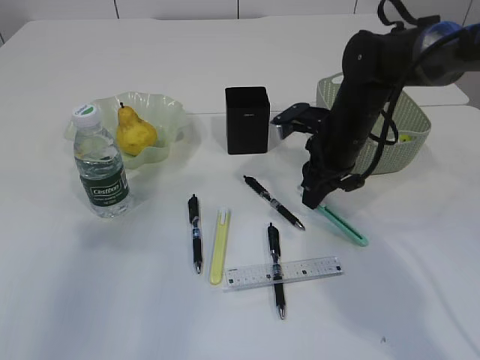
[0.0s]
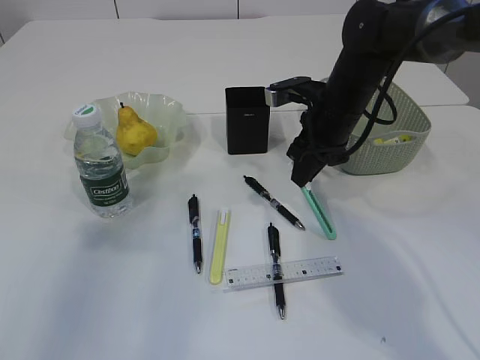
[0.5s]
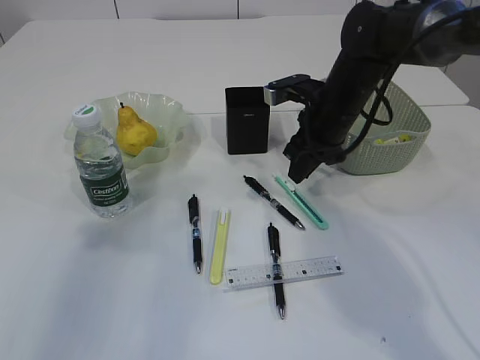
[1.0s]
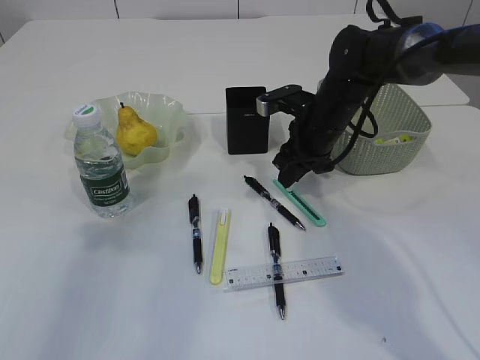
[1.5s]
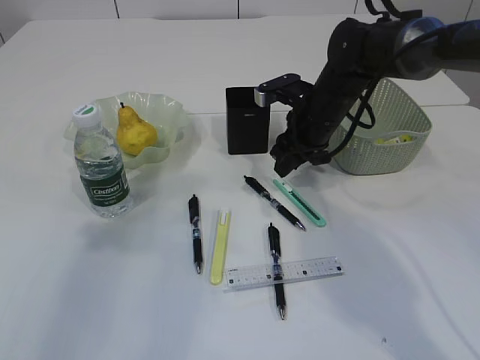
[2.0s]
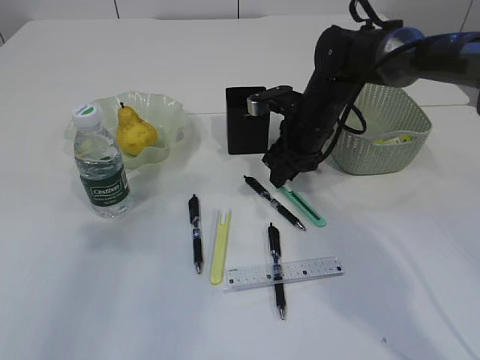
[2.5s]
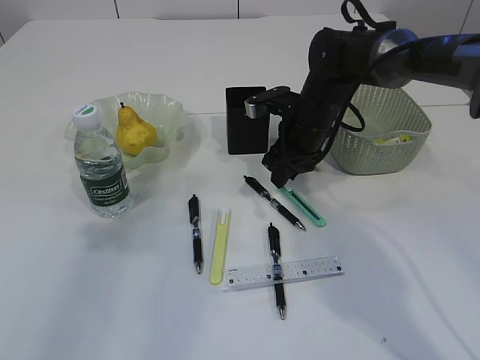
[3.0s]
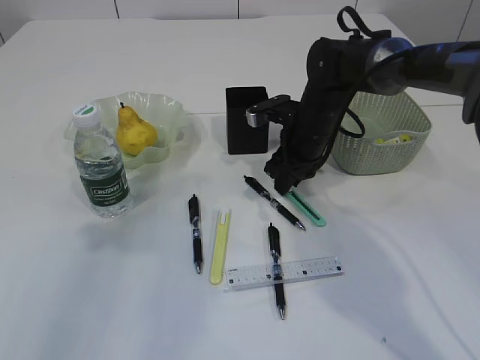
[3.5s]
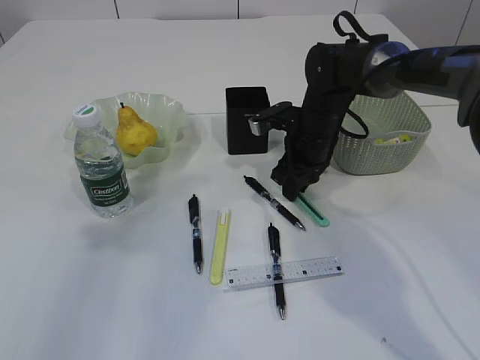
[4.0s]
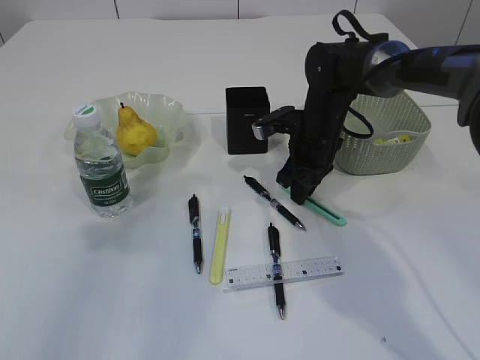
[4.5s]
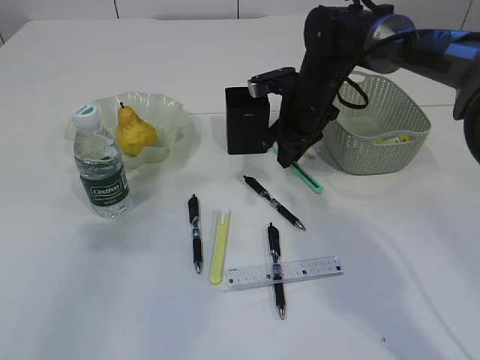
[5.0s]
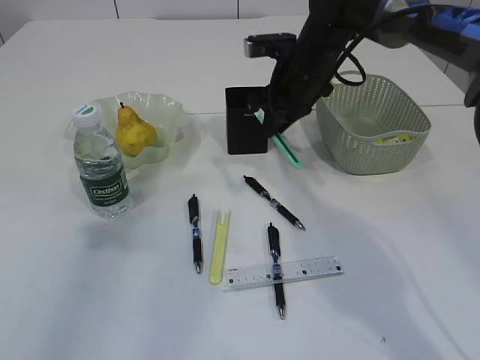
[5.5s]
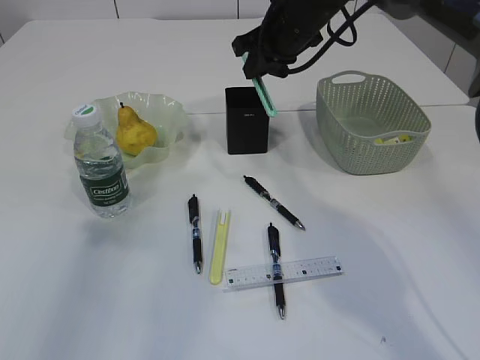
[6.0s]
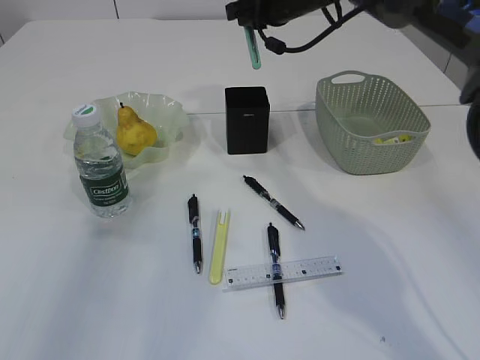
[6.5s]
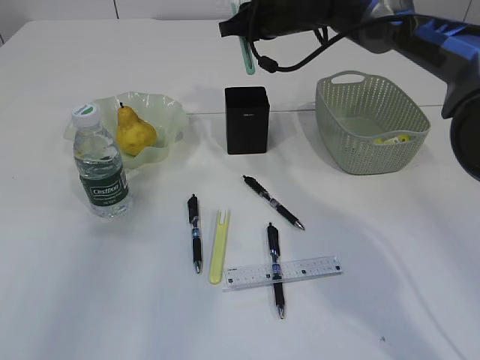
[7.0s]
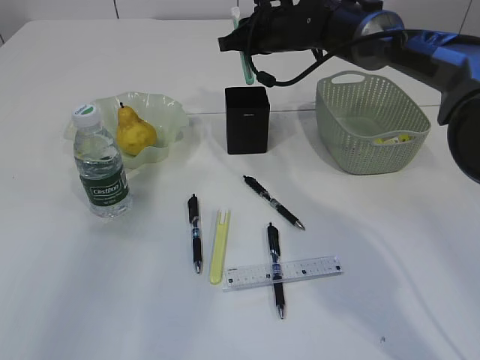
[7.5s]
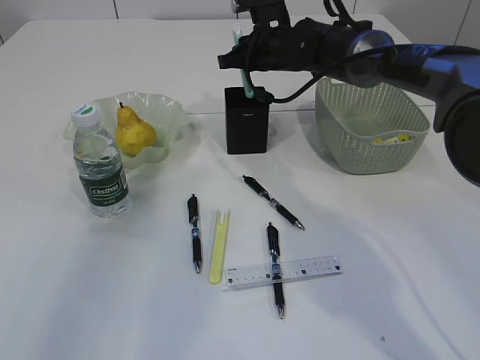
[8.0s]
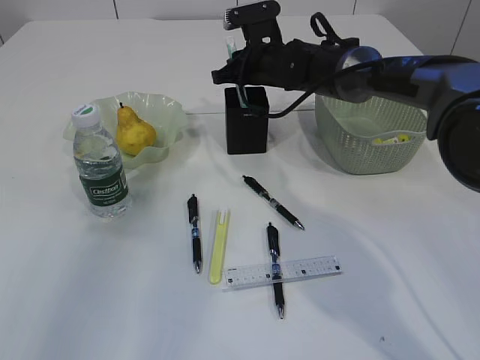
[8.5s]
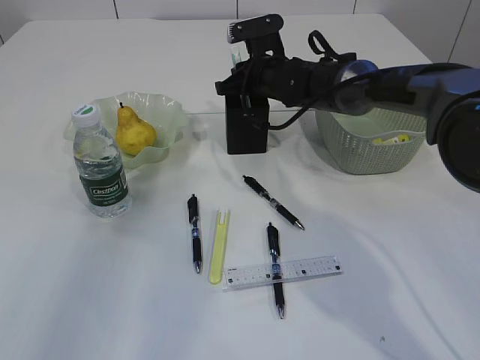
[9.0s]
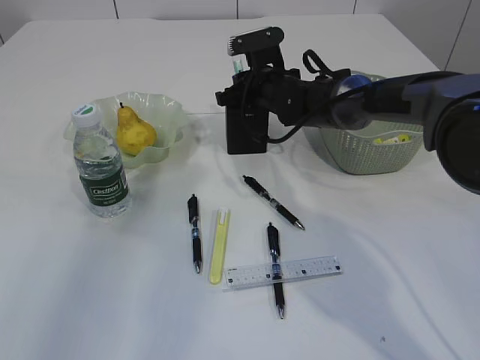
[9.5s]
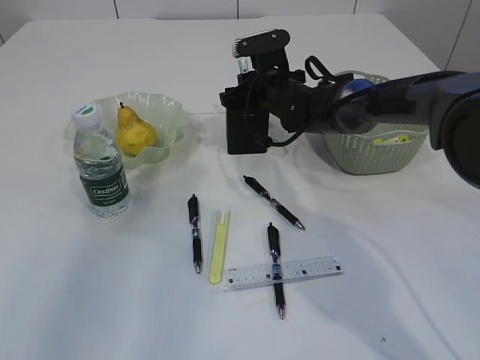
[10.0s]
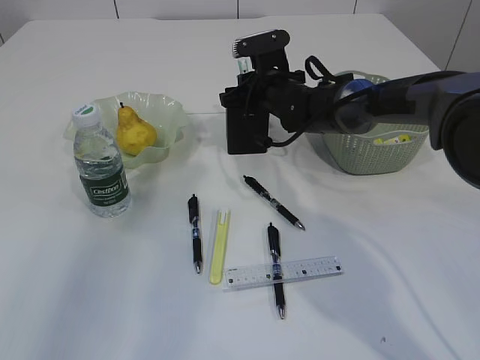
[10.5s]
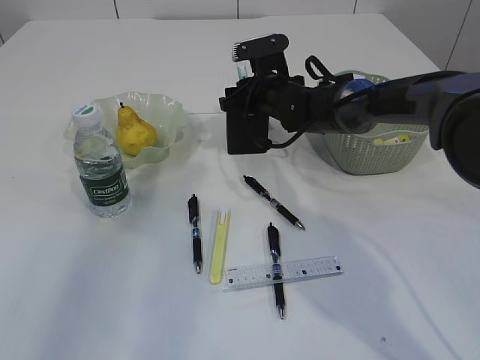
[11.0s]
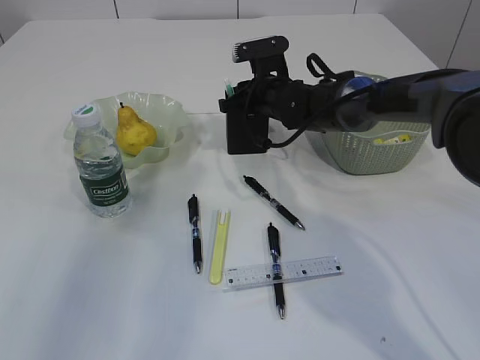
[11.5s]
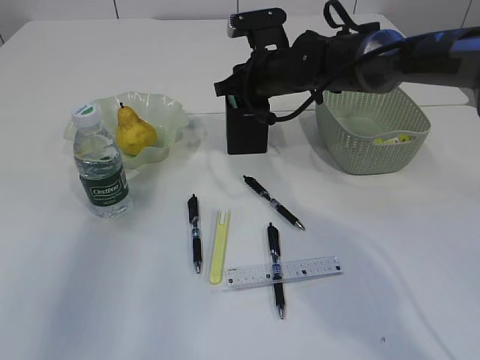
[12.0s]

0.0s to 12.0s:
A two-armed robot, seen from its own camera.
Step, 0.0s to 5.5s: pick up the blue scissors.
0.0s to 4.0s: The grippers move only a little.
4.0s to 6.0s: The right gripper goes roughly 15 cm upward.
6.0s to 8.0s: The right gripper shifts about 5 cm downward.
8.0s to 10.0s: The right gripper moves downward, some 5 cm.
10.0s to 12.0s: The right gripper ends up roughly 5 cm from where it was.

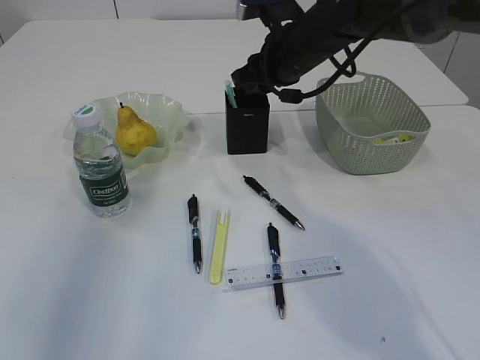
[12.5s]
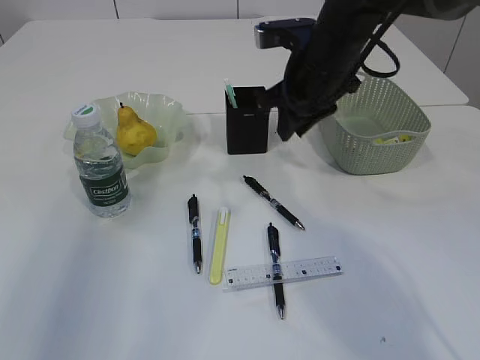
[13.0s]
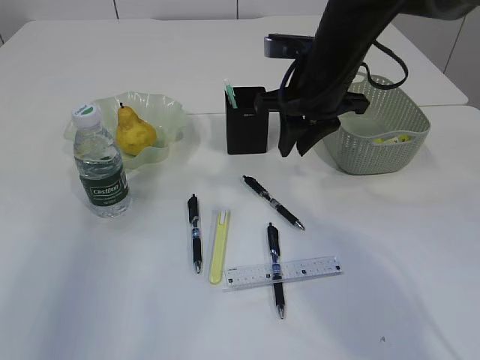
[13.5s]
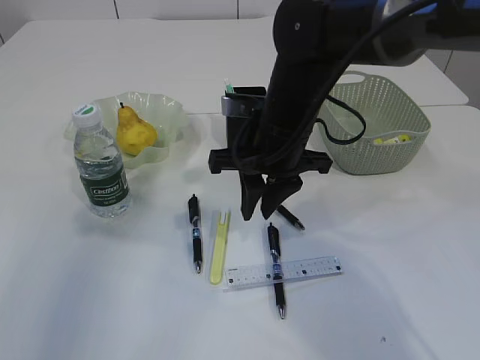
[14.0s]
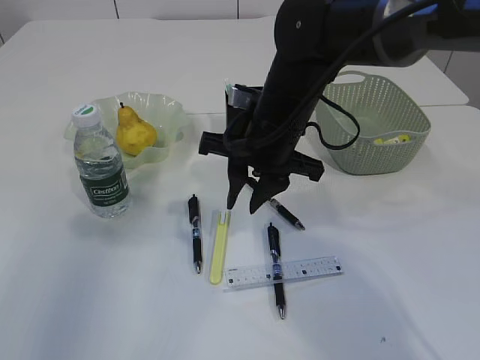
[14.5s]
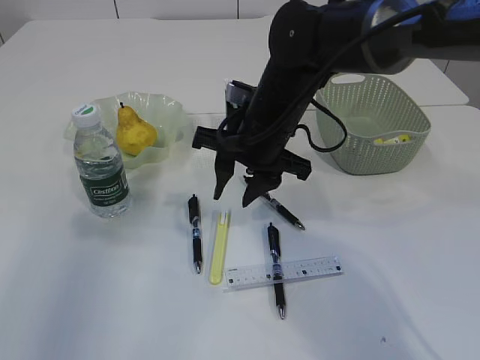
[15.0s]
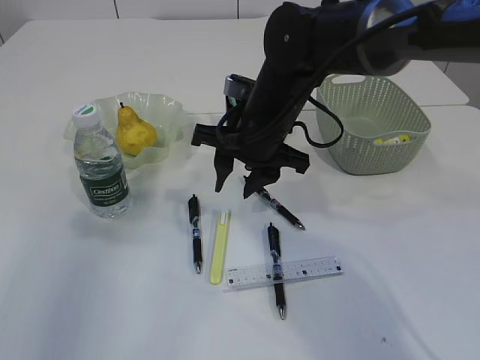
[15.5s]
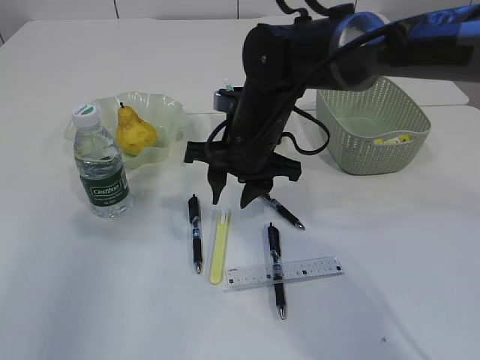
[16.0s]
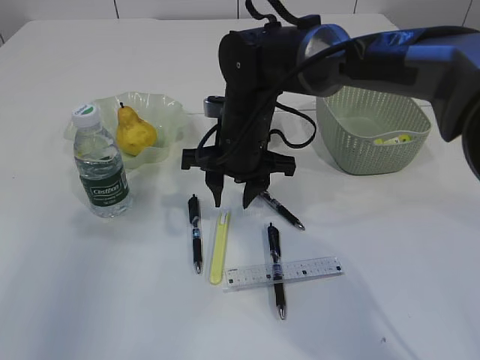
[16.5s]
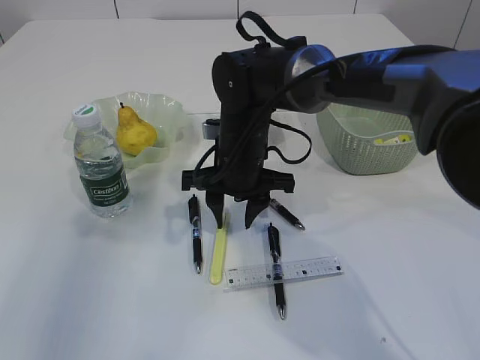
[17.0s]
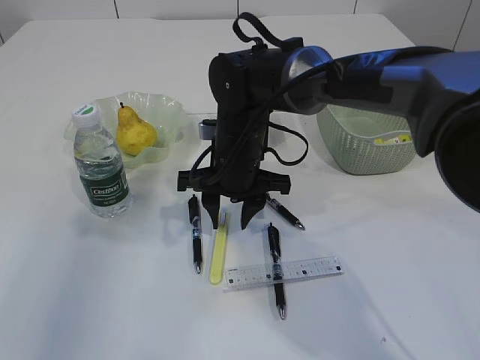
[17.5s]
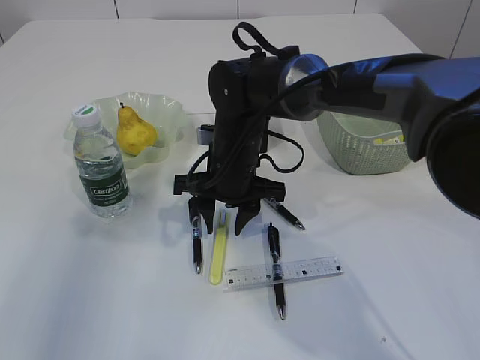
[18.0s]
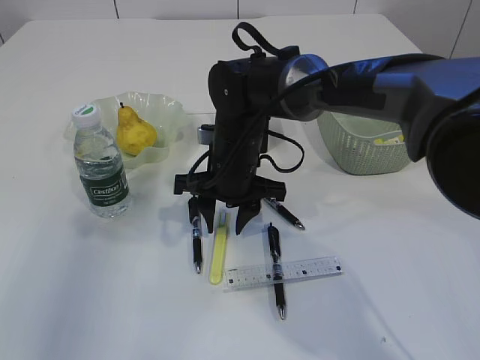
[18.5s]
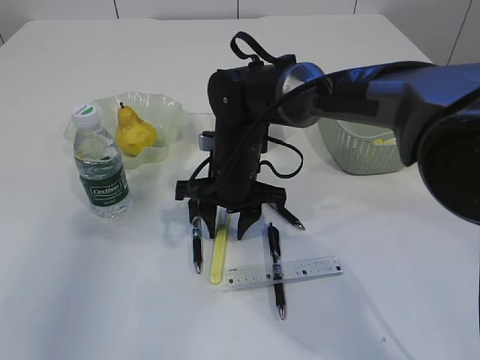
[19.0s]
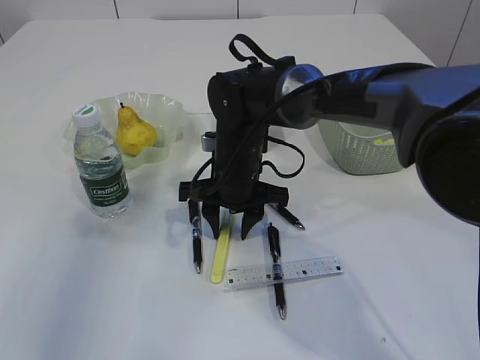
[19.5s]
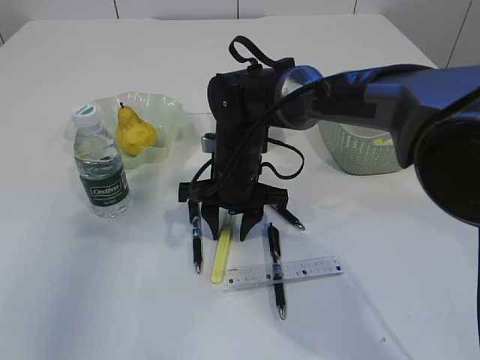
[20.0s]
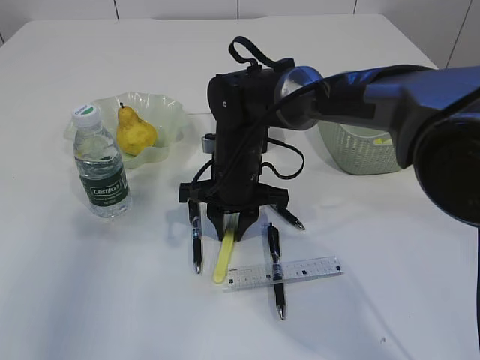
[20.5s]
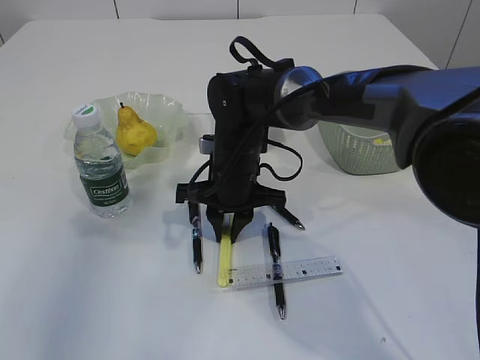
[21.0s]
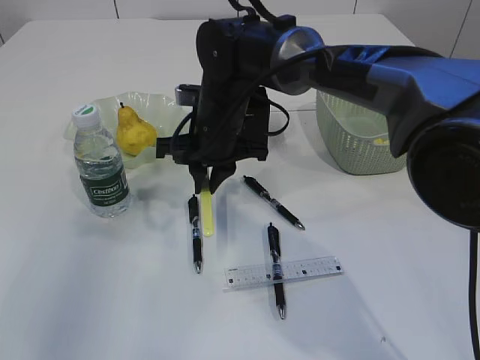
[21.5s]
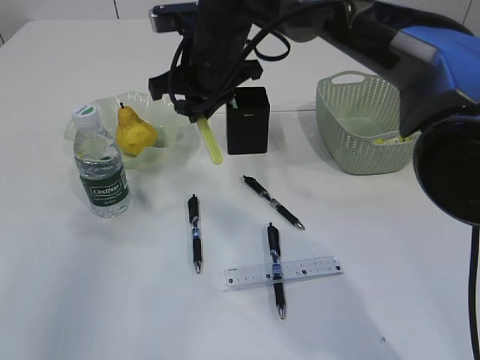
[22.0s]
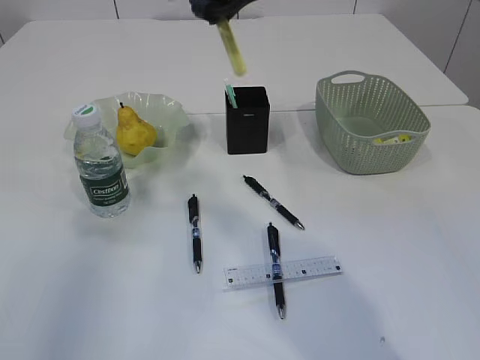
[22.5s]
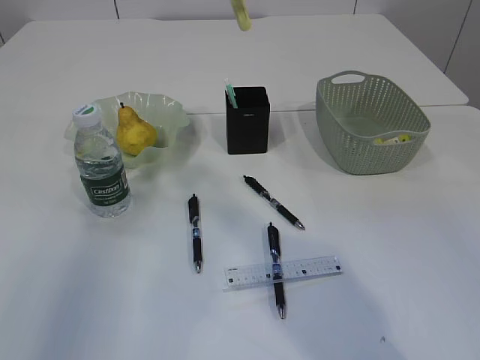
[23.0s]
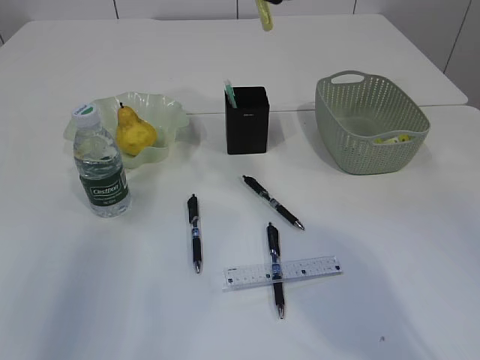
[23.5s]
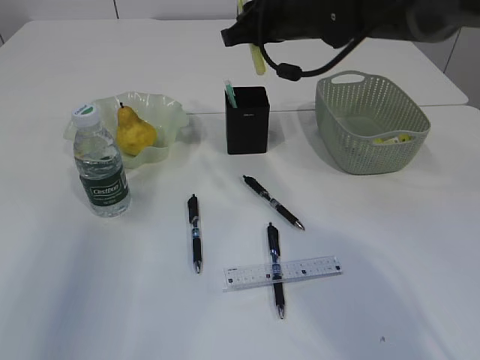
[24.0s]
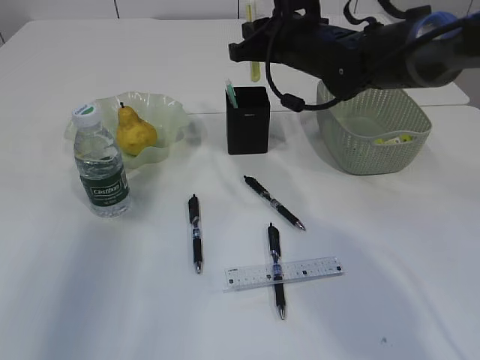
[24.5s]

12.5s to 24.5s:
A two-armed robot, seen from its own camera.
Step, 13.0s to 21.5s: pick up the yellow knife.
12.5s to 14.5s: The right gripper moves backward, about 10 cm.
14.5s to 16.5s: The right gripper changes place by approximately 5 cm.
16.5s to 20.5s: The grippers move only a little.
20.5s to 22.5s: The right gripper is displaced upward by some 25 cm.
22.5s to 24.5s: The right gripper heads downward, to the right and forward, covering approximately 15 cm.

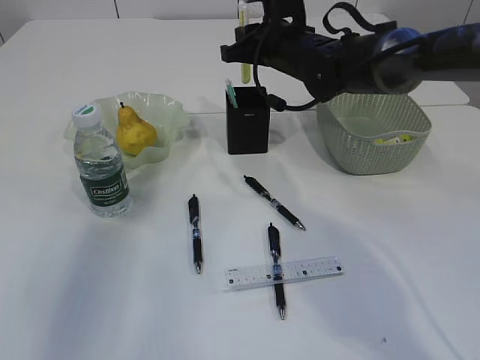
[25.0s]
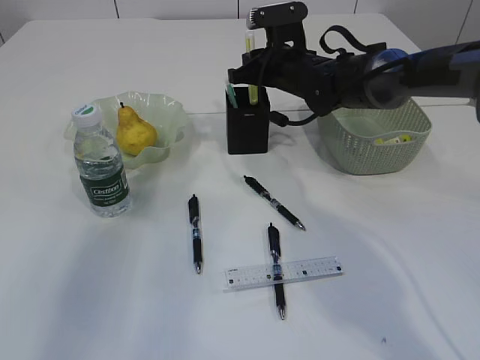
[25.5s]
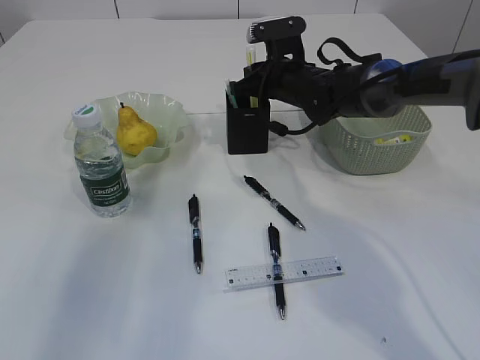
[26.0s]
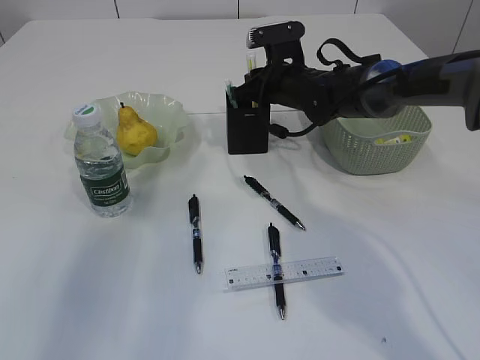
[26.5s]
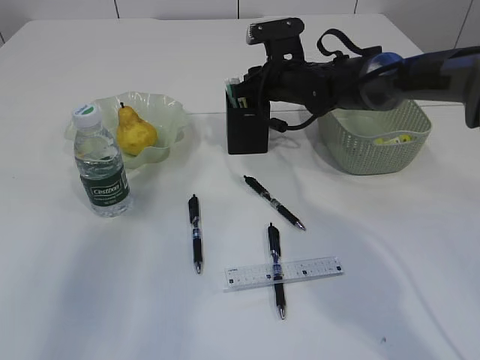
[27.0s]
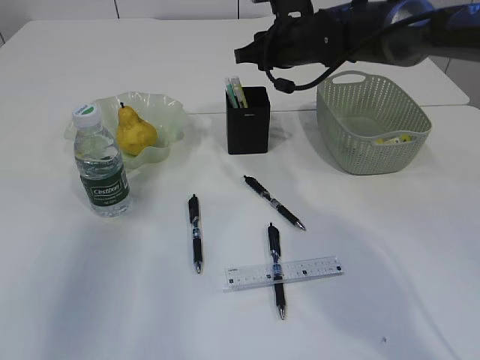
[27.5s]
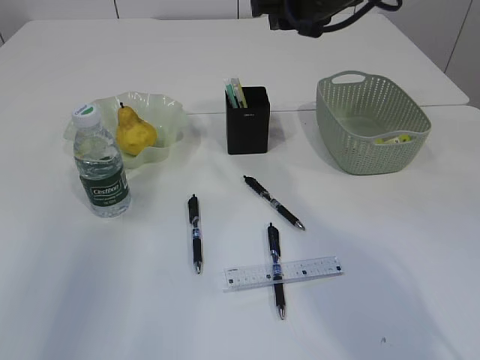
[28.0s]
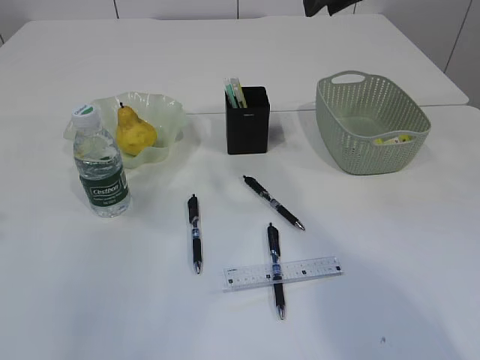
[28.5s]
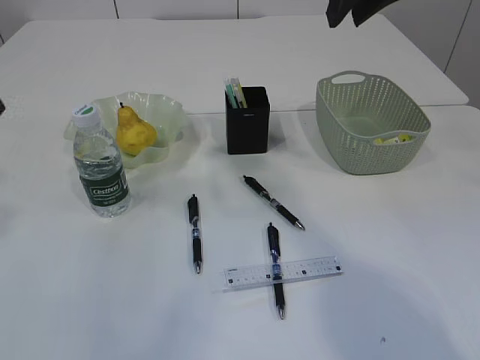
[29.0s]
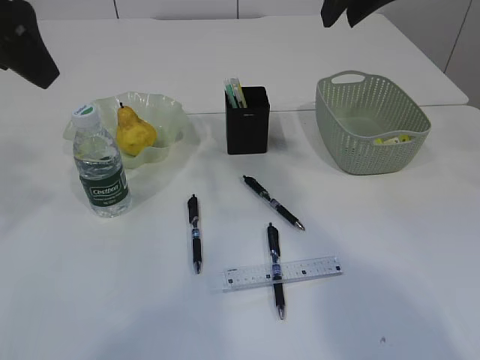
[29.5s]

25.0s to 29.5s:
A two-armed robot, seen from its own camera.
Step, 25.0s to 28.0s: place the yellow knife into the pen holder.
25.0s to 27.0s: The right gripper goes about 5 cm downward.
27.0s to 29.5s: The left gripper shifts roughly 10 cm to the right. Meanwhile the right gripper travels upward and backward by roughly 25 cm.
